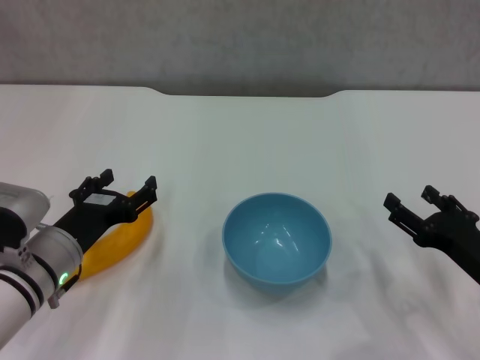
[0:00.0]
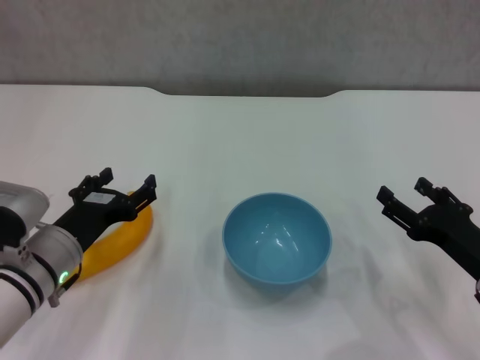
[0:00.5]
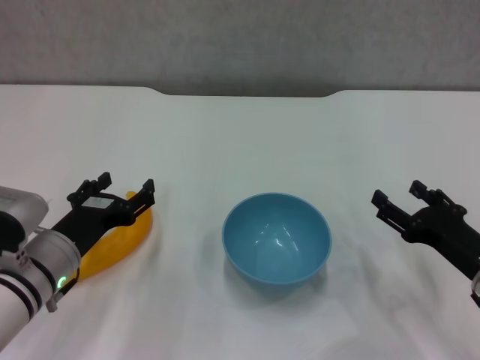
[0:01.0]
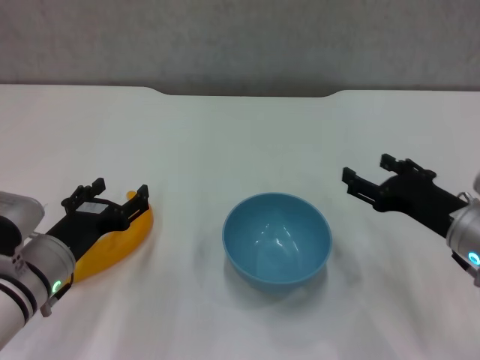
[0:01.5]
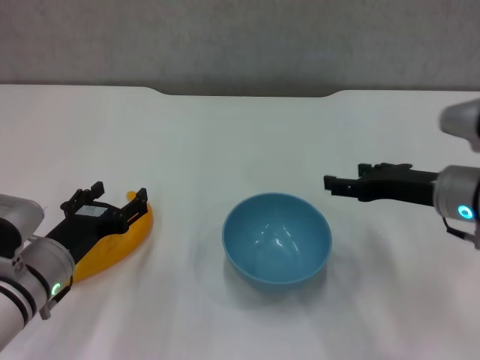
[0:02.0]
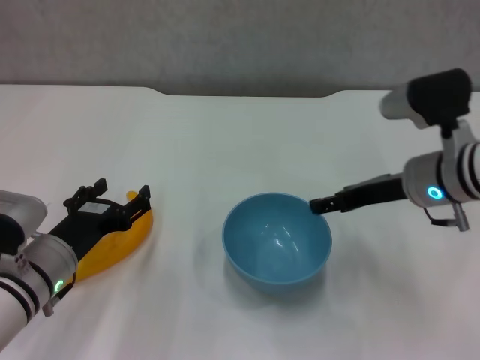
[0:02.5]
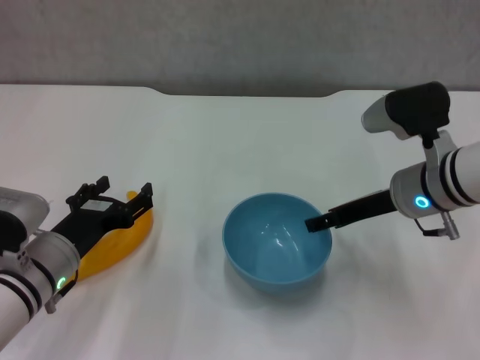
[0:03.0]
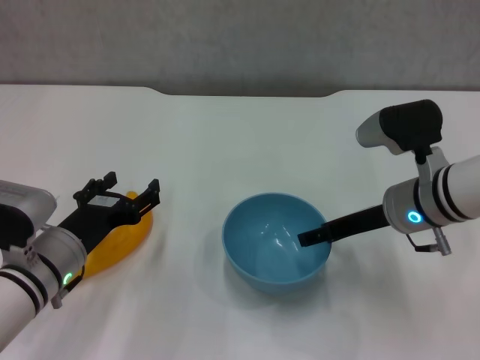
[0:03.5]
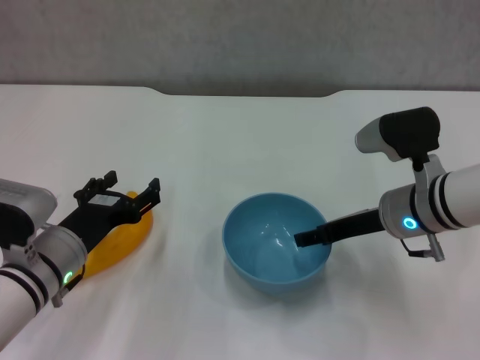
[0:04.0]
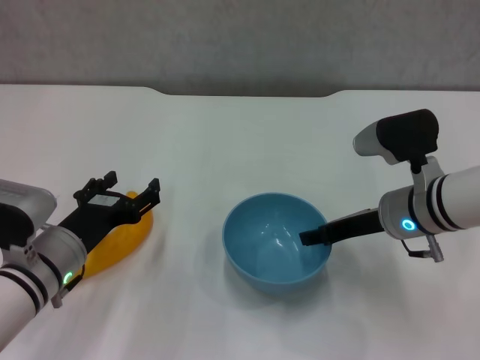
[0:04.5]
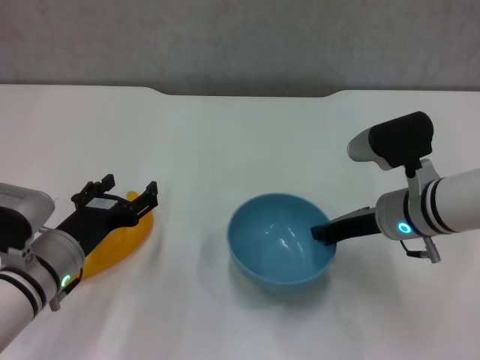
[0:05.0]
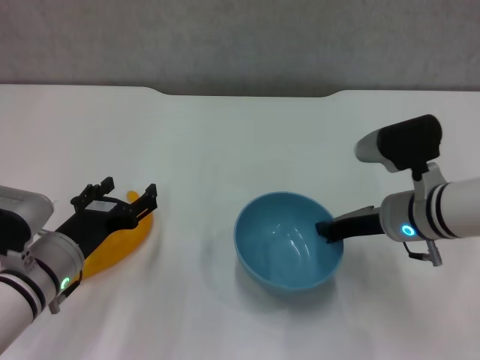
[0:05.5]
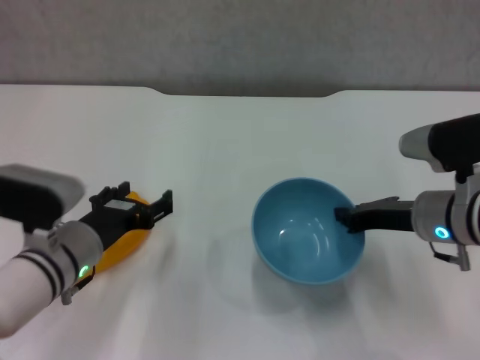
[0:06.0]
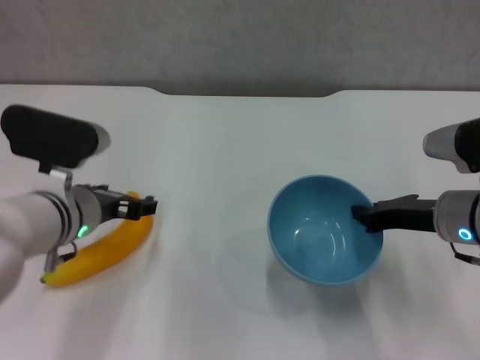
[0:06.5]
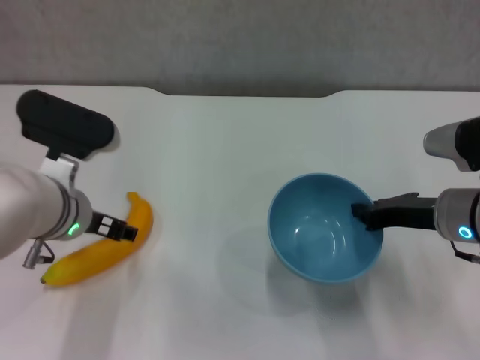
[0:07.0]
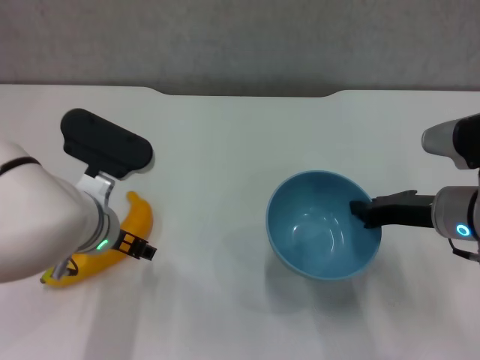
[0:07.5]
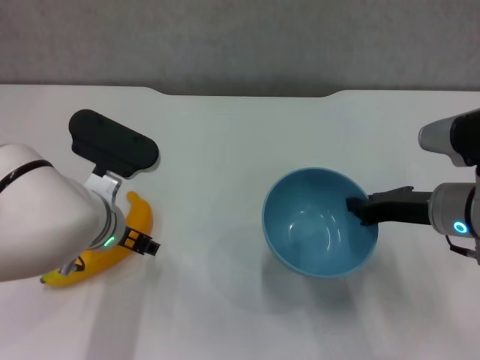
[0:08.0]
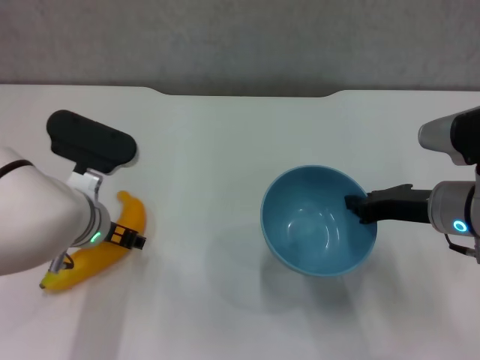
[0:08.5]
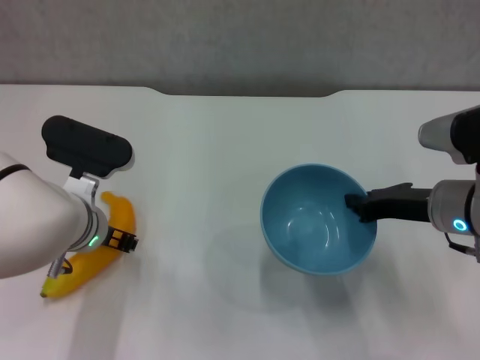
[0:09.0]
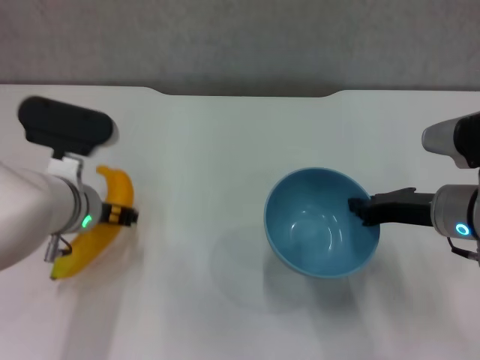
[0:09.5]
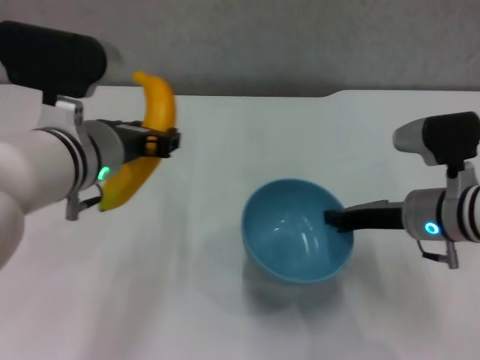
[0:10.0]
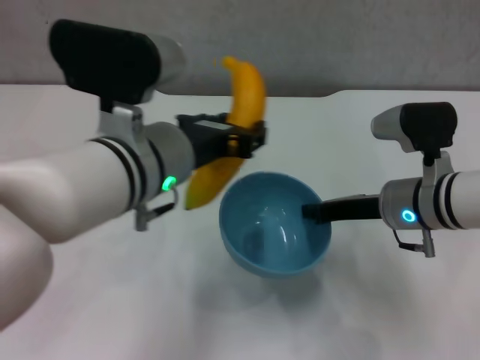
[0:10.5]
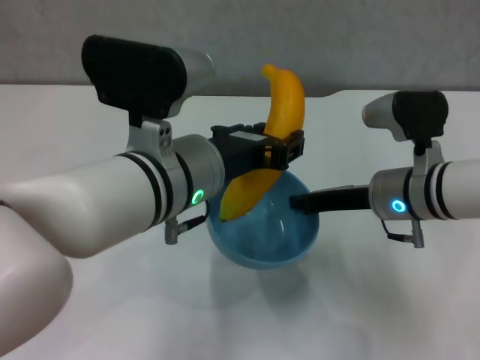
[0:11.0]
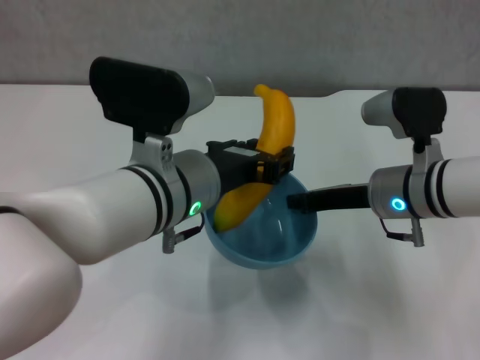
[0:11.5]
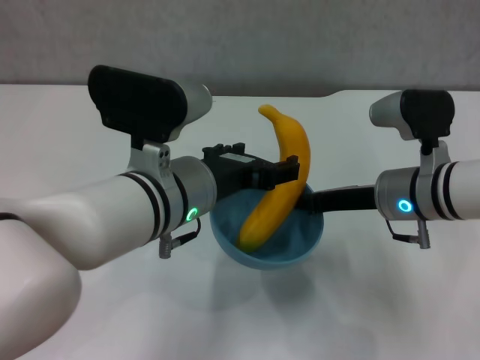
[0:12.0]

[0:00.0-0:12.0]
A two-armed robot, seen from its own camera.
Step, 0:00.0 to 0:05.0: Grasp the blue bowl with right gripper.
Step, 0:05.5 to 0:06.0: Lift the blue bowl with right gripper.
Step, 0:06.5 to 0:09.0: Grasp the banana with left gripper.
Step, 0:09.5 to 0:11.5: Place the banana in the blue bowl with left gripper.
0:00.0 to 0:02.0: The right gripper travels forward and upward by some 10 cm.
0:02.0 to 0:04.0: The right gripper moves some 5 cm.
0:04.0 to 0:06.0: The right gripper closes its fingers.
0:06.0 to 0:08.0: The left gripper travels upward by approximately 5 cm.
0:08.0 to 0:10.0: The left gripper is displaced upward by roughly 10 cm, and closes.
0:10.0 to 0:12.0: The left gripper goes some 5 cm to the right, and opens.

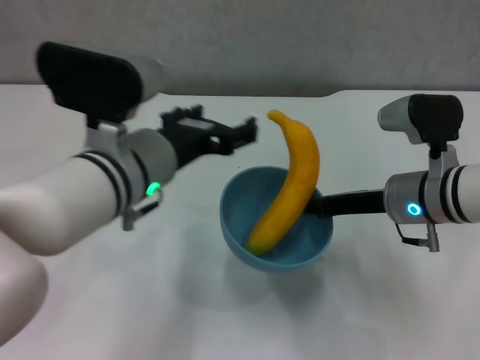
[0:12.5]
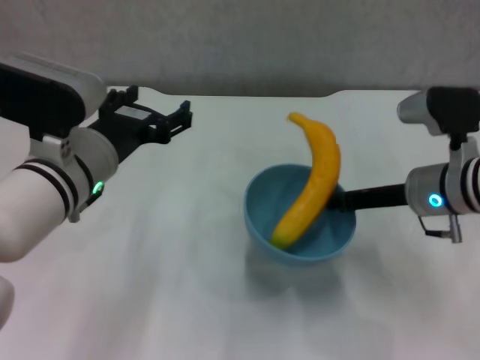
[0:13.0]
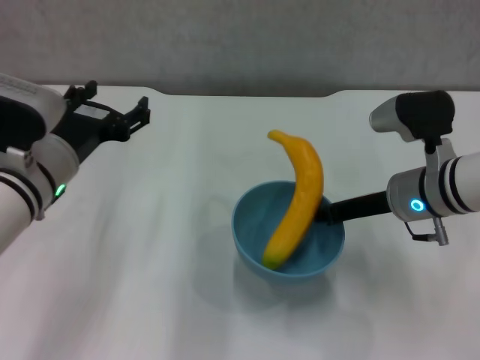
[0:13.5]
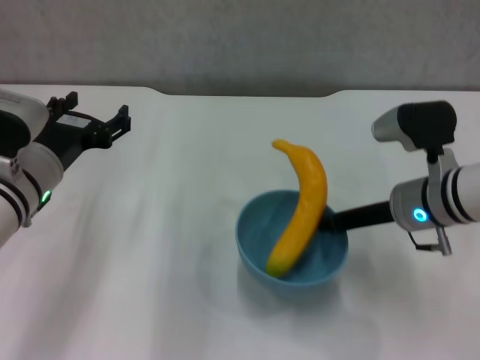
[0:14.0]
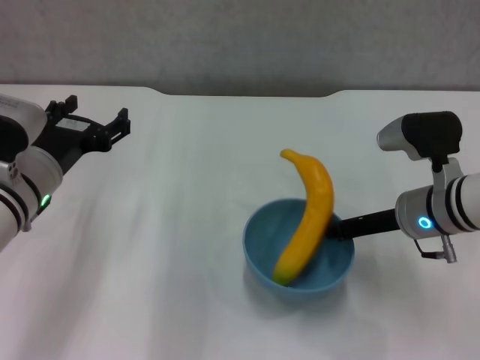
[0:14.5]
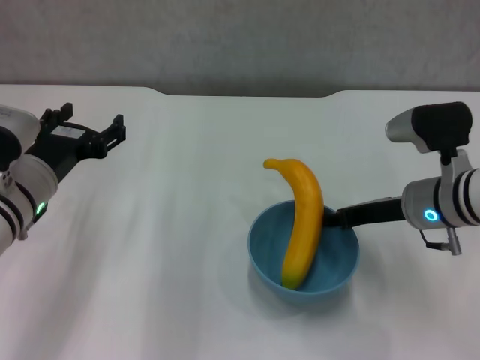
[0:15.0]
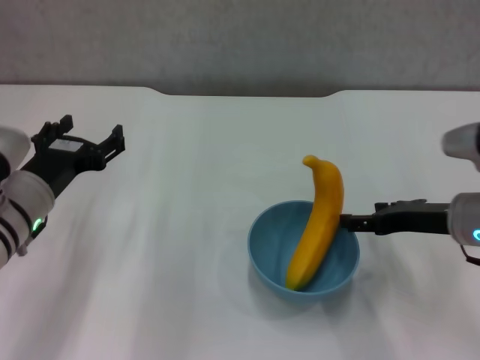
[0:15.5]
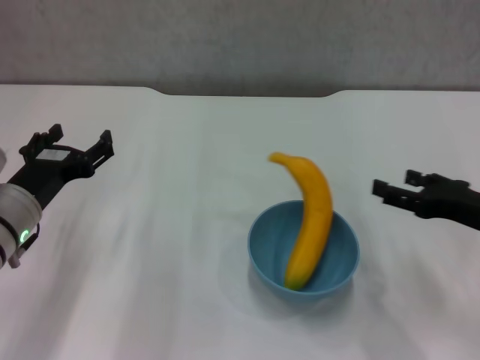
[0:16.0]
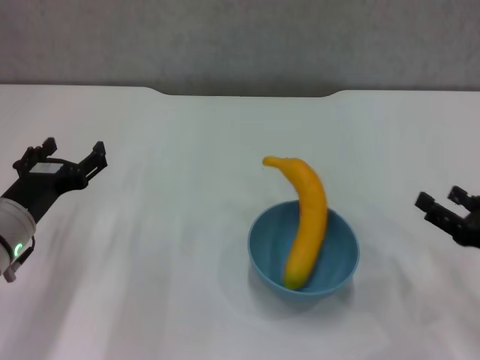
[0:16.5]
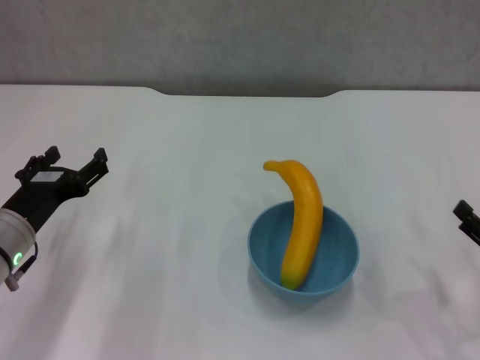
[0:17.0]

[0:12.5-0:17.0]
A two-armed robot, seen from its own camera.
Step, 0:12.5 to 0:15.0: Place the bowl on the table with right gripper.
0:12.5 to 0:14.5: The left gripper travels to the left and downward by approximately 15 cm.
0:14.5 to 0:17.0: The left gripper goes roughly 5 cm downward. The right gripper shifts roughly 20 cm backward and to the right, and opens.
